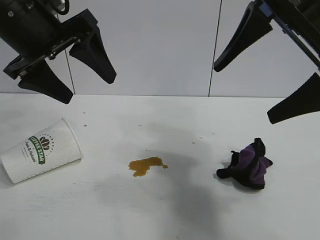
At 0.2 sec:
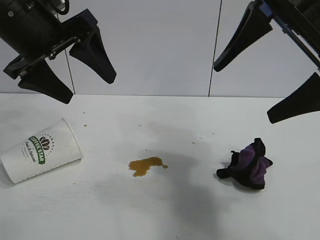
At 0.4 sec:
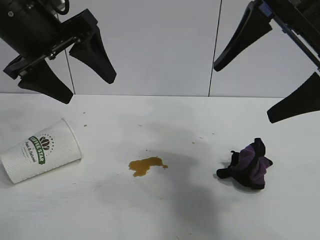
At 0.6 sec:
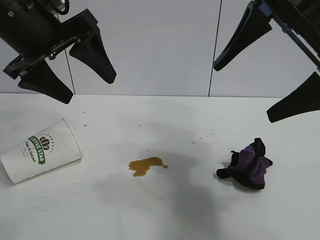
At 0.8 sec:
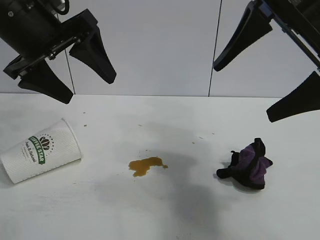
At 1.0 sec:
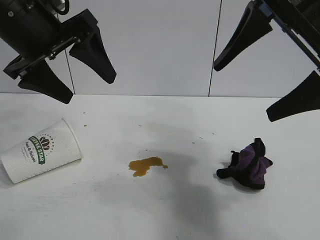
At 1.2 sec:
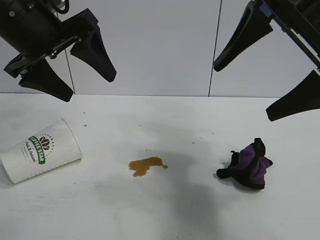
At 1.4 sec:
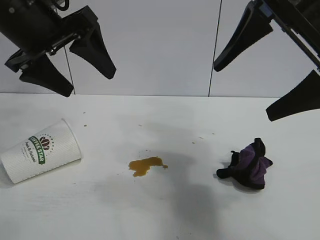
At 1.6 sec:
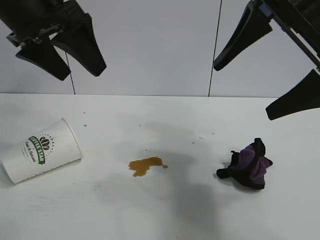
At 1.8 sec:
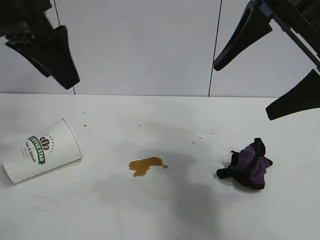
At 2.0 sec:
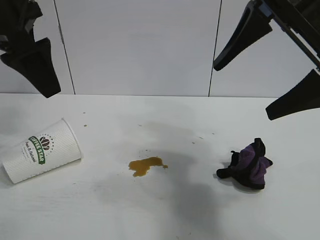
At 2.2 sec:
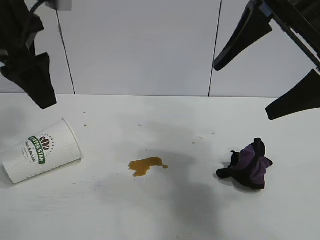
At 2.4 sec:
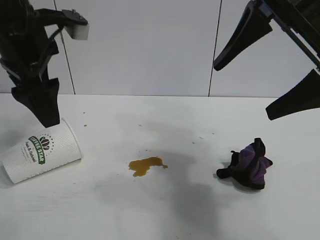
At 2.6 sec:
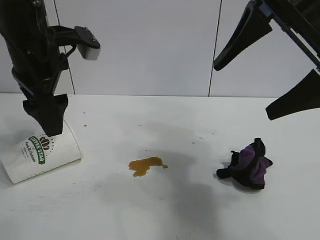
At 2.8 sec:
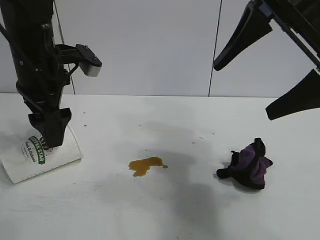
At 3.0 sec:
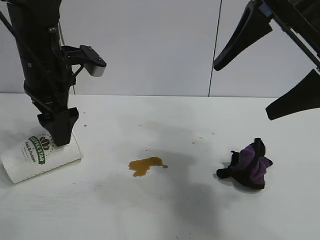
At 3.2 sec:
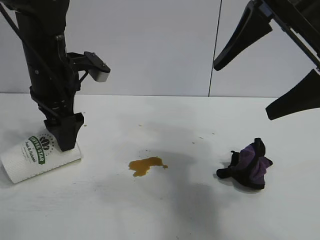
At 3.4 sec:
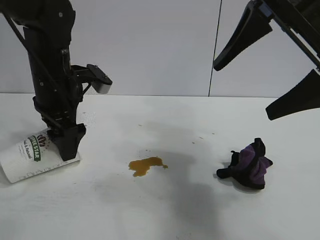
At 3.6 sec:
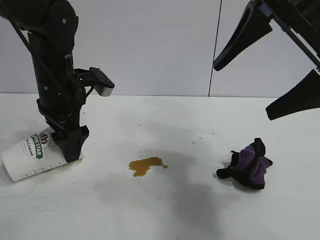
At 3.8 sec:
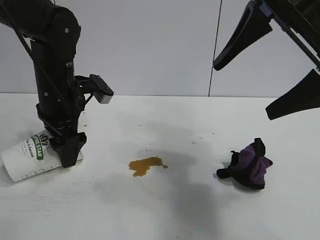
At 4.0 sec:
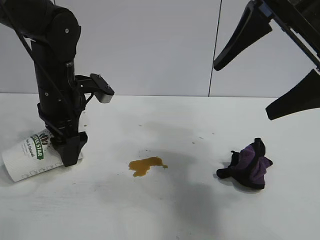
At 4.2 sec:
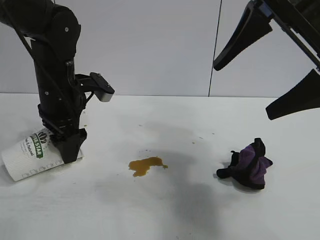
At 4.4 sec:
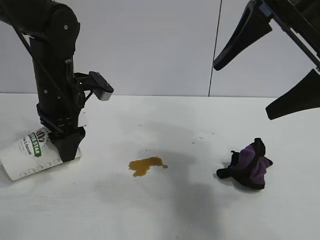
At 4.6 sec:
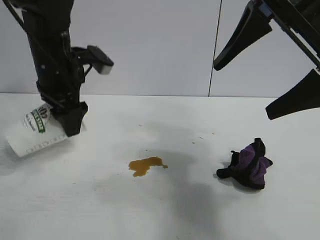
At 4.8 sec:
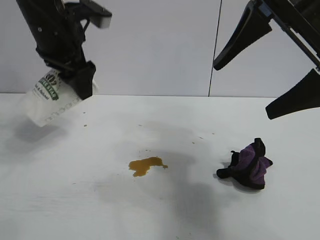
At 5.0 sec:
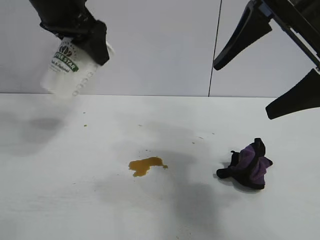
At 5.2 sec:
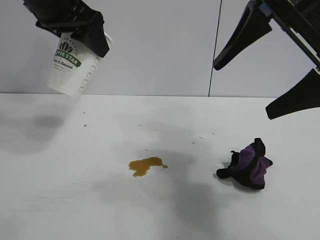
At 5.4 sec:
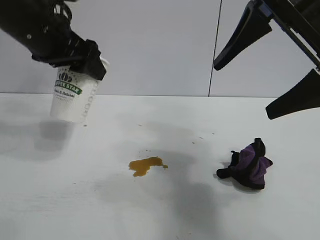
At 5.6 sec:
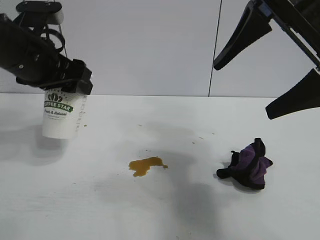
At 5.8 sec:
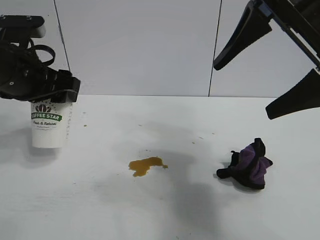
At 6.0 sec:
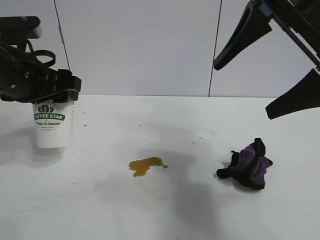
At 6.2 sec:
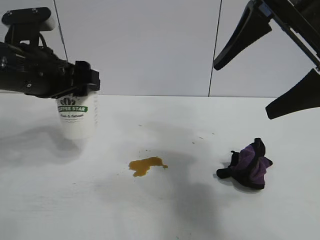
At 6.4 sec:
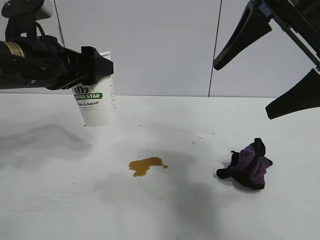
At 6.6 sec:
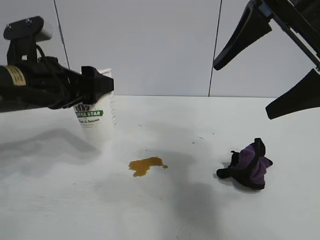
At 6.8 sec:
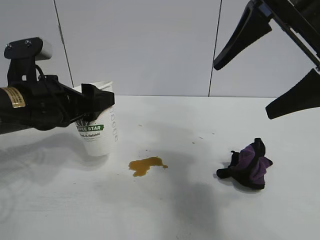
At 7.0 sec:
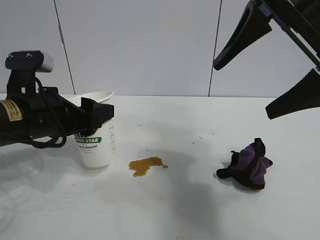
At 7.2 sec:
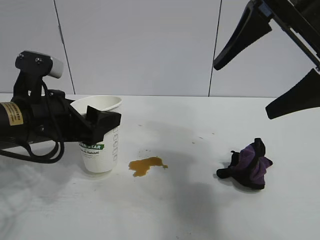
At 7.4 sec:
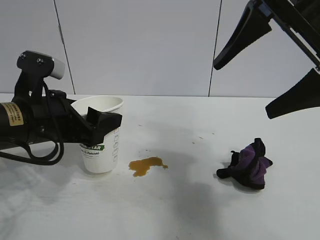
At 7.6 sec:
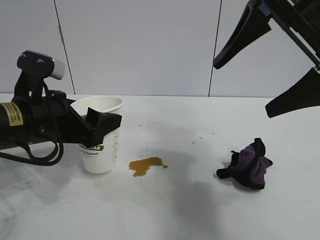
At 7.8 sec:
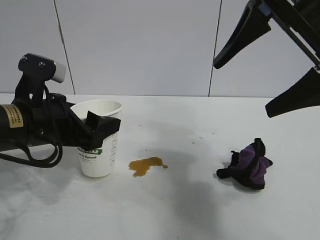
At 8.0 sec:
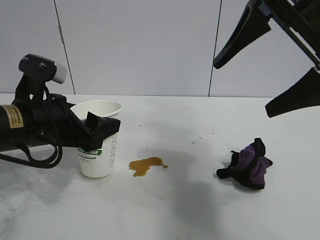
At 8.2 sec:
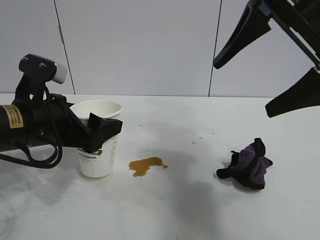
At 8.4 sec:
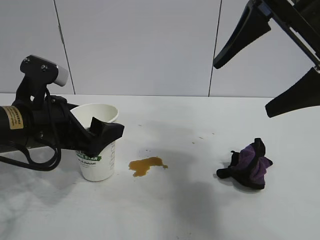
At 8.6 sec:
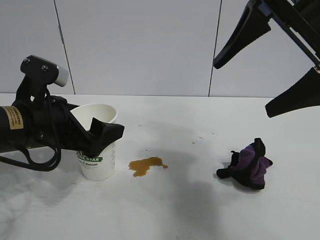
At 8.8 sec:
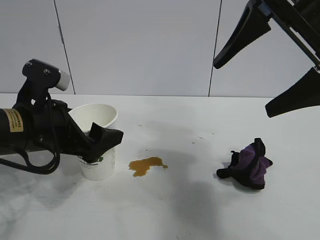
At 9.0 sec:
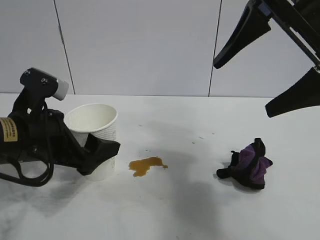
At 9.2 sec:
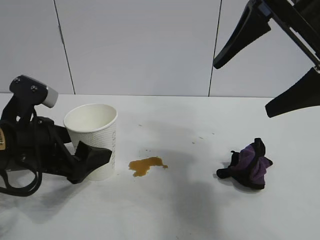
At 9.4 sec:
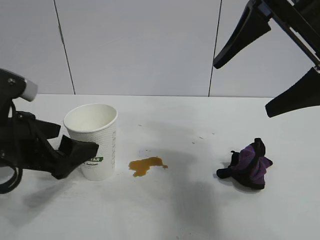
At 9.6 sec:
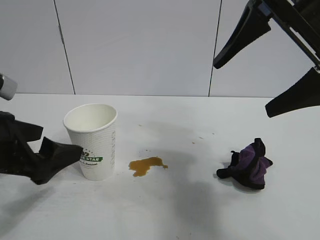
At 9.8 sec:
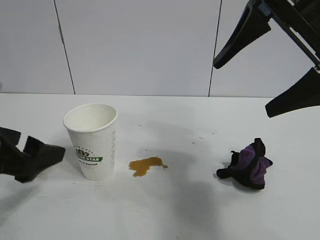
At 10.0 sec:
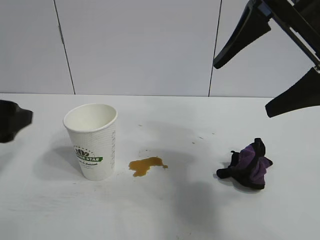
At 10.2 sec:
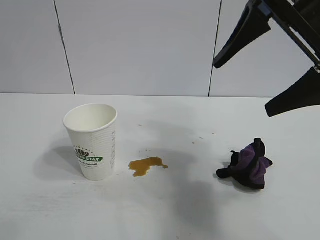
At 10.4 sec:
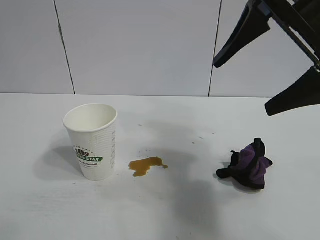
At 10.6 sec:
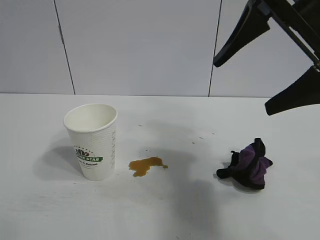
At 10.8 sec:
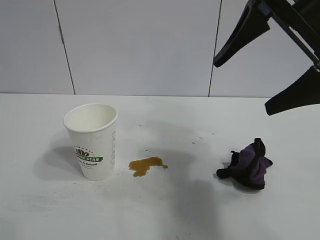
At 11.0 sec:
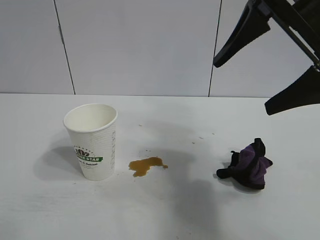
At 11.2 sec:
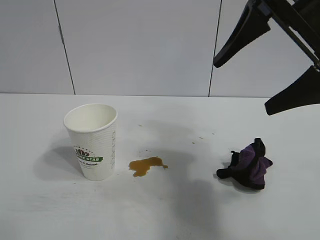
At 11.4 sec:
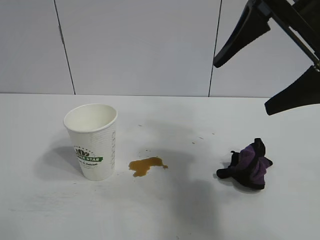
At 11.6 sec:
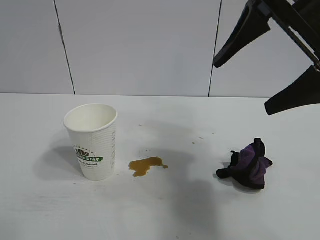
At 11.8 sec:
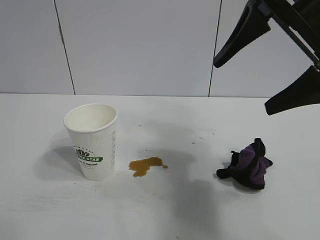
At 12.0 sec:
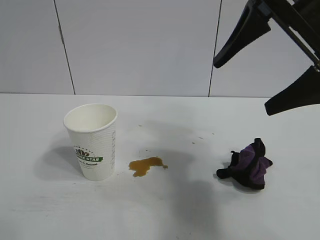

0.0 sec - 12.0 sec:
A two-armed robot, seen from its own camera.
Task of the whole recording: the left gripper pick up the fallen cup and place it upright, the right gripper grasp the black rag and wipe the stain on the table, the right gripper put the black rag back in its original position.
Step, 1.4 sec - 4.2 sec: Grasp the paper cup with left gripper.
Step, 4.4 sec - 8.6 sec: Stand the paper cup upright with left gripper.

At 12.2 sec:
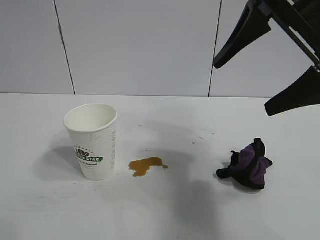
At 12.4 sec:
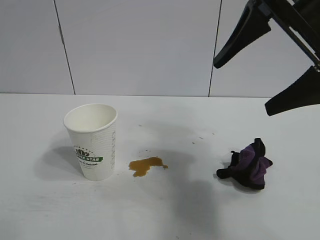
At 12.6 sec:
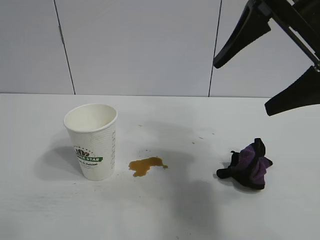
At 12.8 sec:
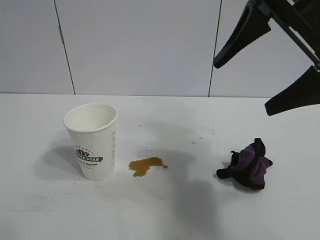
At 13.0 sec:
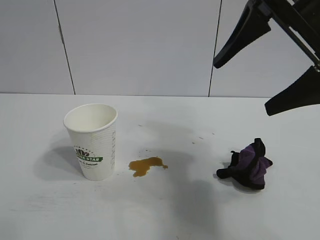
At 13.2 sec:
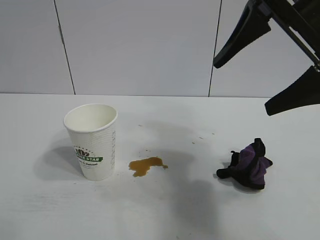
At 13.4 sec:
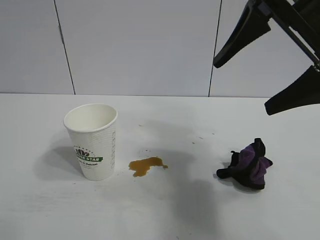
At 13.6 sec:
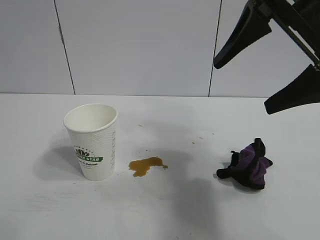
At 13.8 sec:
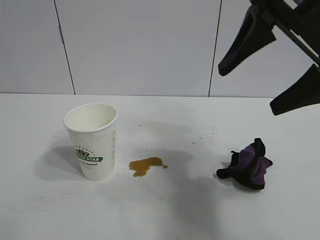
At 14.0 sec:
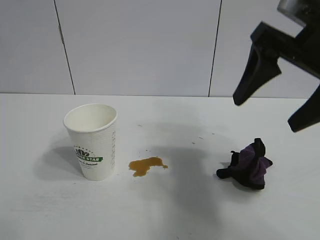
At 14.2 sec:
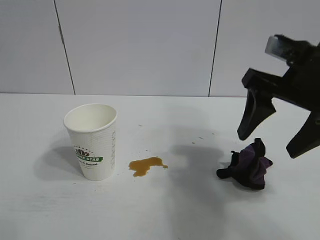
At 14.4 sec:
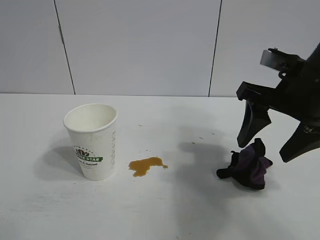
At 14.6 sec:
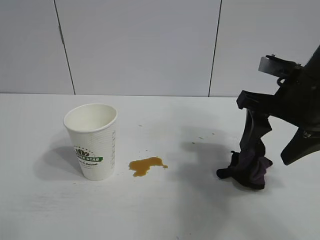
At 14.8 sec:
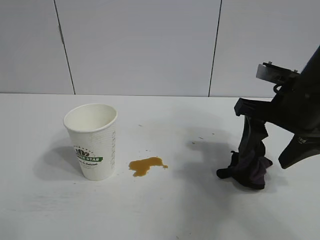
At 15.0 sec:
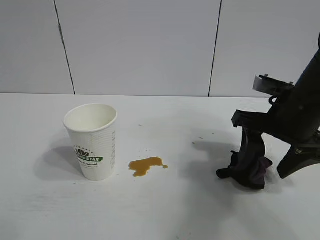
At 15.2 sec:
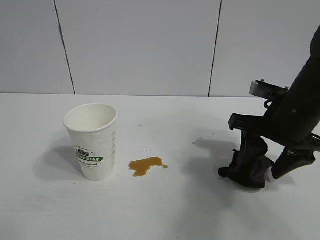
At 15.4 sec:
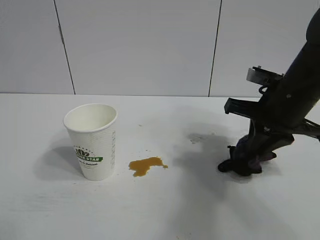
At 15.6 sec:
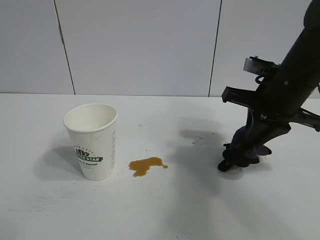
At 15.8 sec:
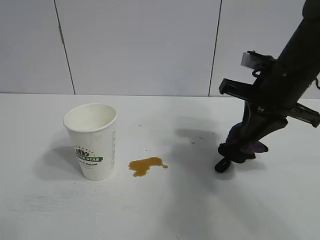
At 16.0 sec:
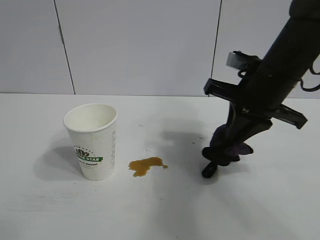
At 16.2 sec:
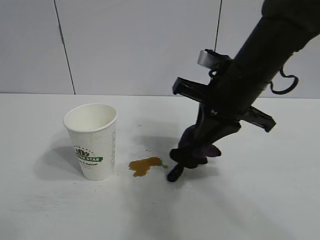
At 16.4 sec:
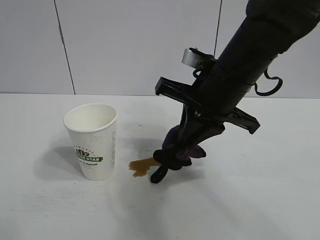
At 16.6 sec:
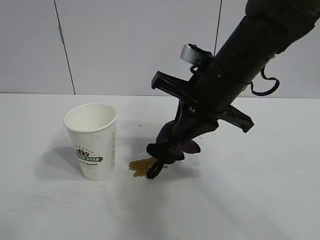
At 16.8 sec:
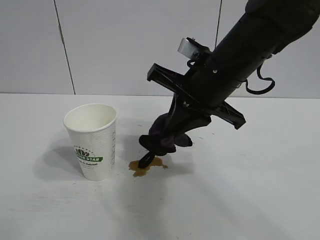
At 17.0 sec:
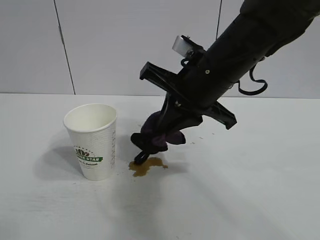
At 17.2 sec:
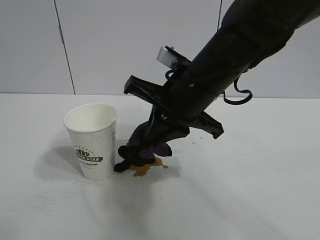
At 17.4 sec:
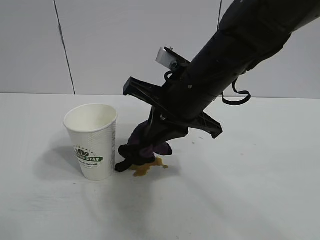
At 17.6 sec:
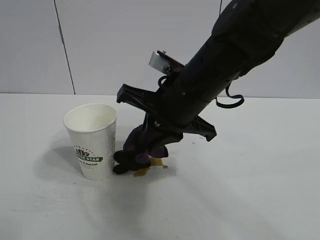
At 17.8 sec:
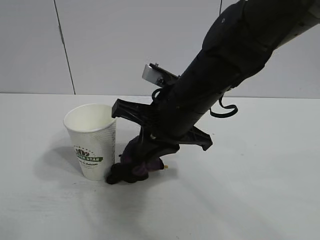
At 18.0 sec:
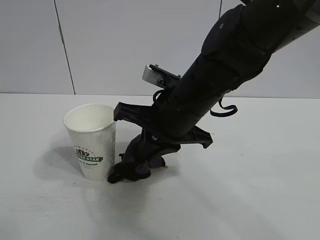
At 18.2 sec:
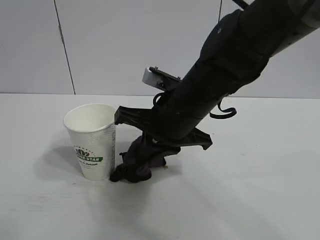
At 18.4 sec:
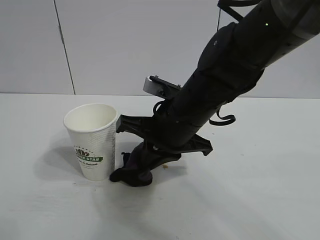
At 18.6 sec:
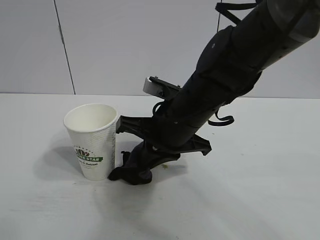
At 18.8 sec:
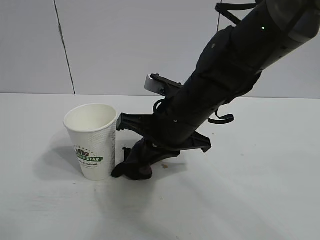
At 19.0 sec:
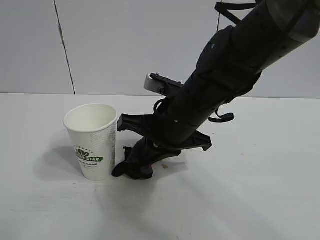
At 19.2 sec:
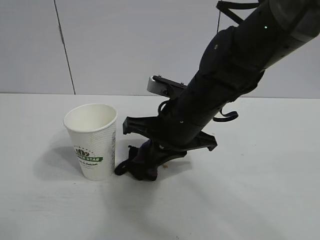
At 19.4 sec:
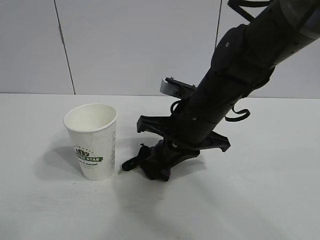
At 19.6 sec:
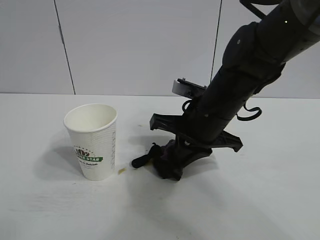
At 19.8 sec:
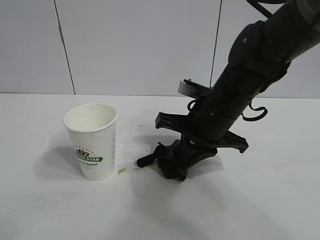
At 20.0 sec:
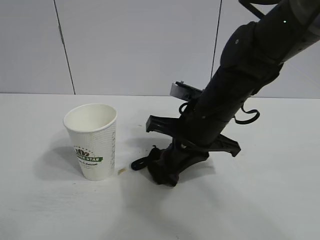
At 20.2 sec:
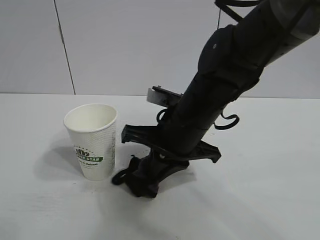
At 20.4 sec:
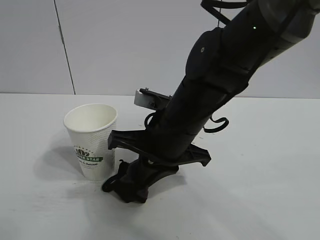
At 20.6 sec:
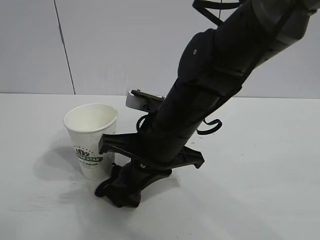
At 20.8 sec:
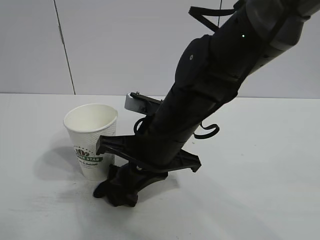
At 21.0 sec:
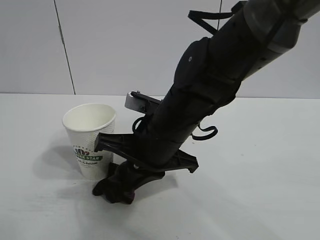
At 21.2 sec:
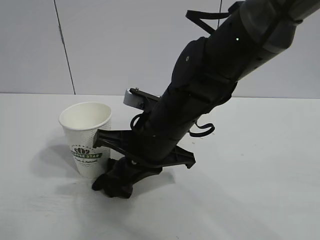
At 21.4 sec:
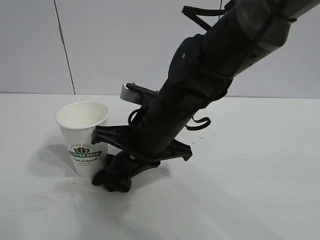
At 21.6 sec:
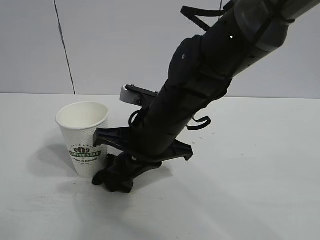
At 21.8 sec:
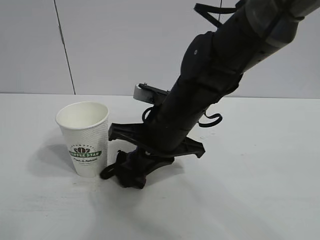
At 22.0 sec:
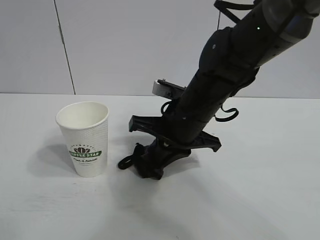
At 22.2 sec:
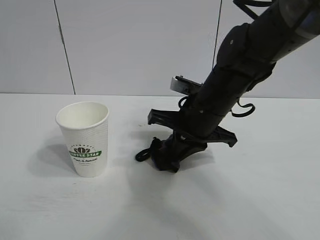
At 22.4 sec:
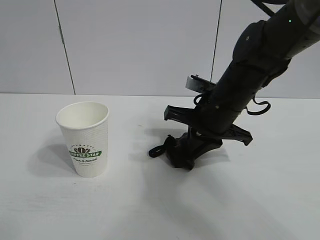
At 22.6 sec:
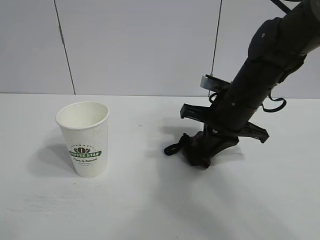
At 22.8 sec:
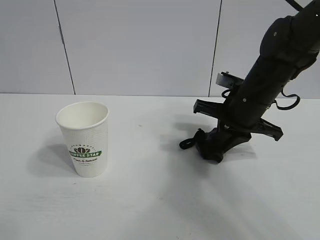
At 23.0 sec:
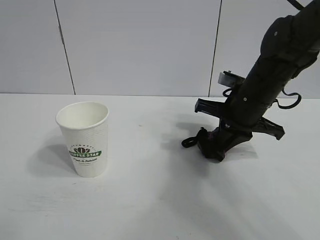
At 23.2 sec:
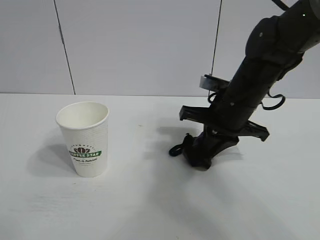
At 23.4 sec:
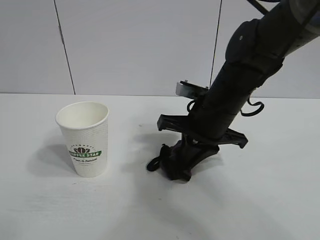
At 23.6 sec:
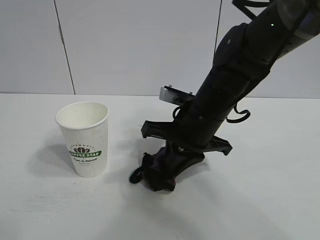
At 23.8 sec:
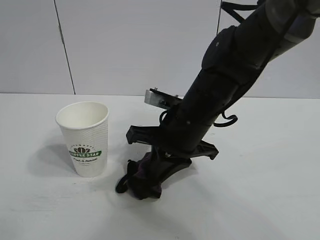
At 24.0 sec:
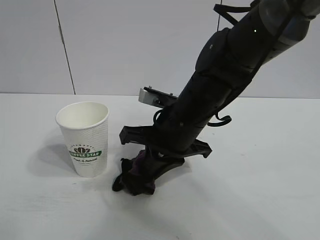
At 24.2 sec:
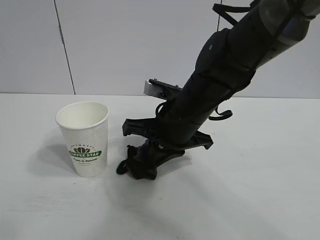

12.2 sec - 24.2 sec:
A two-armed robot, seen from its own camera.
Task of the whole recording: the left gripper pick up the fallen cup and place it upright, the right gripper grasp the black rag and wipe the stain on the table, the right gripper put the black rag back in its original position.
Step, 12.2 sec - 15.2 sec: Grasp the rag with right gripper.
